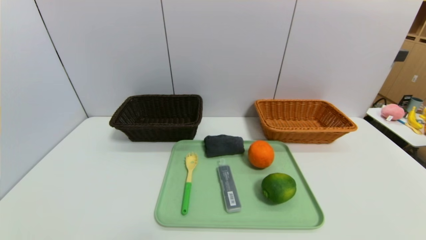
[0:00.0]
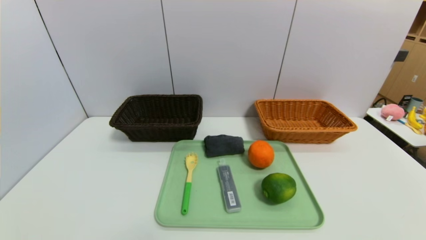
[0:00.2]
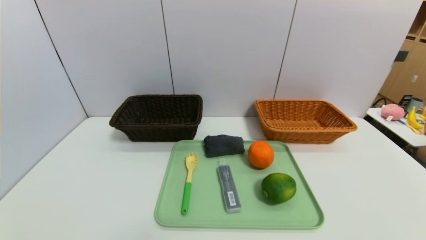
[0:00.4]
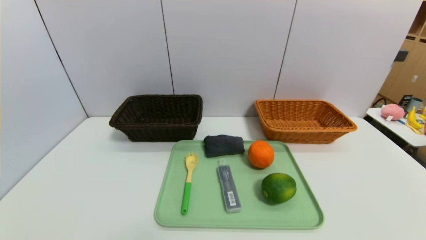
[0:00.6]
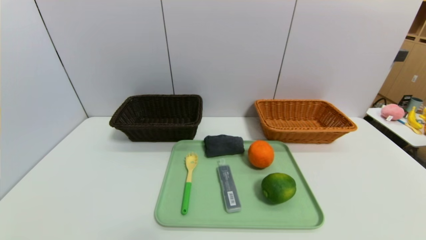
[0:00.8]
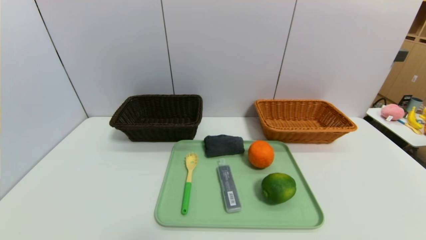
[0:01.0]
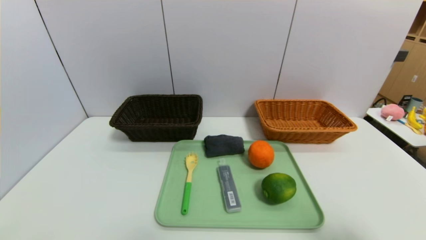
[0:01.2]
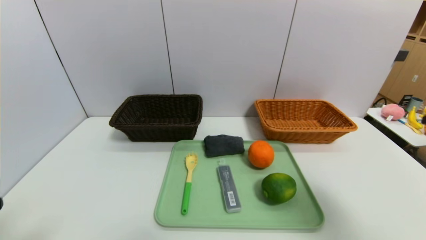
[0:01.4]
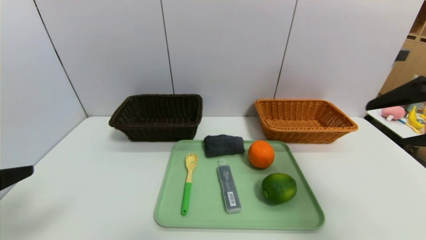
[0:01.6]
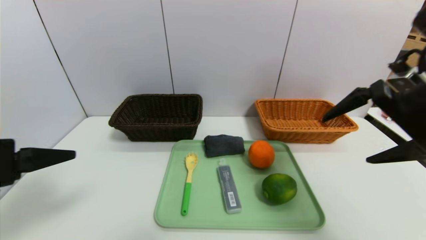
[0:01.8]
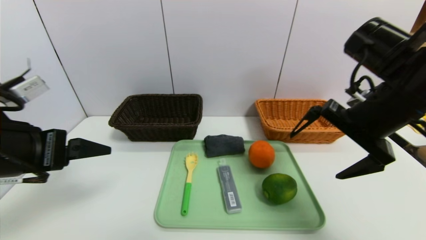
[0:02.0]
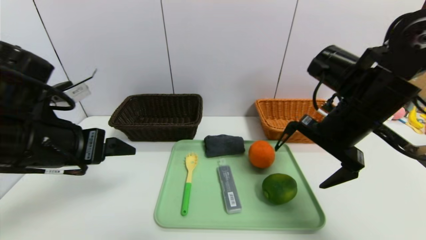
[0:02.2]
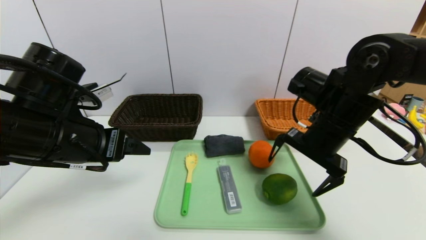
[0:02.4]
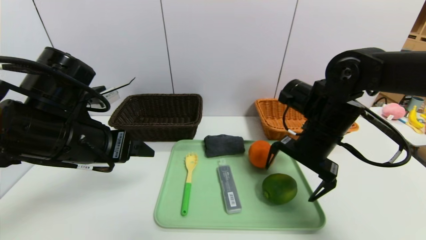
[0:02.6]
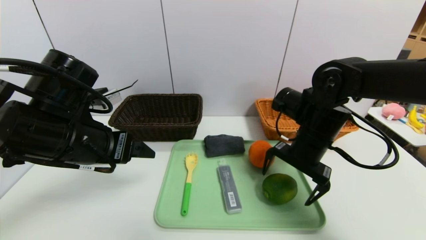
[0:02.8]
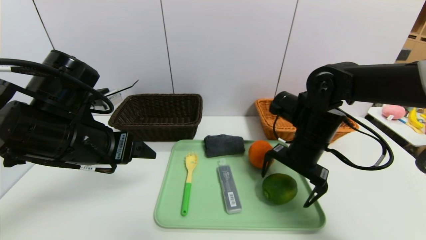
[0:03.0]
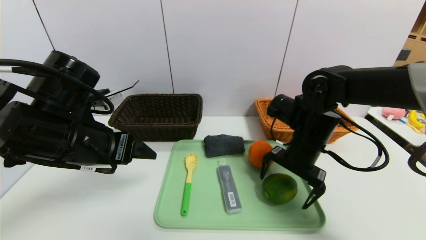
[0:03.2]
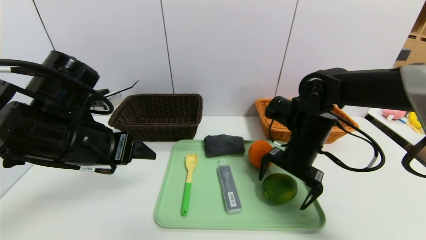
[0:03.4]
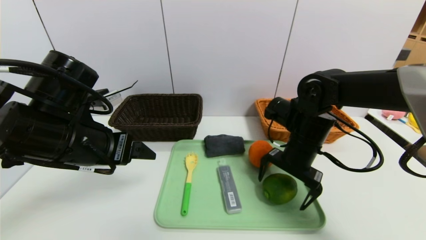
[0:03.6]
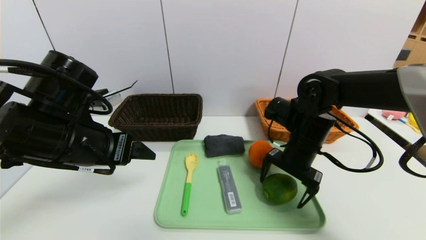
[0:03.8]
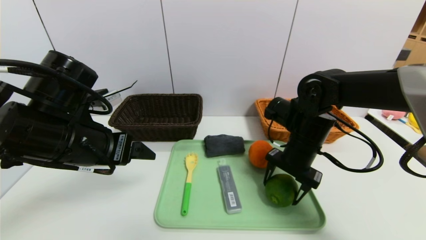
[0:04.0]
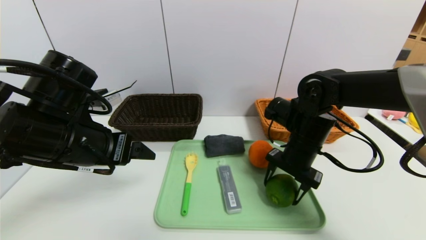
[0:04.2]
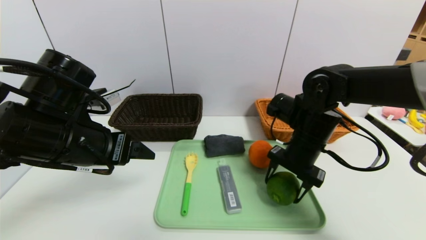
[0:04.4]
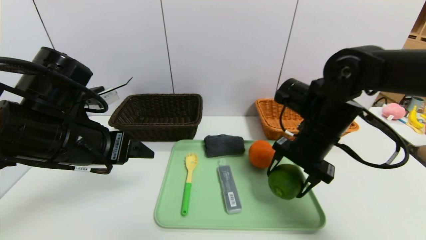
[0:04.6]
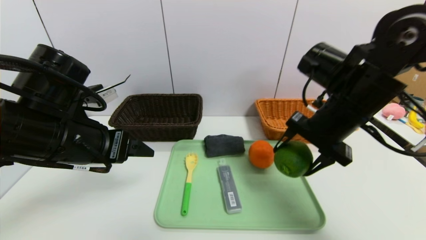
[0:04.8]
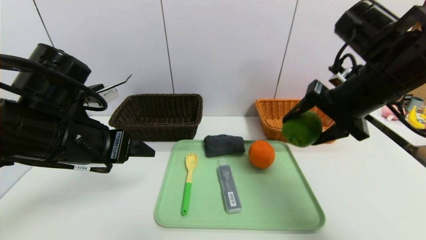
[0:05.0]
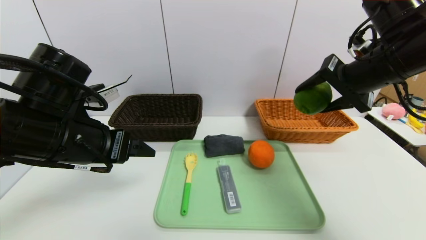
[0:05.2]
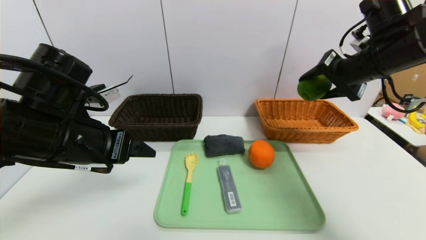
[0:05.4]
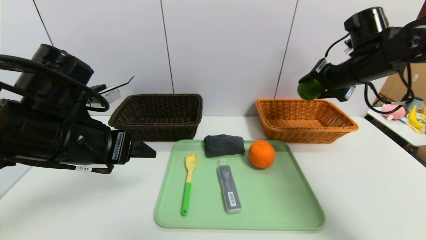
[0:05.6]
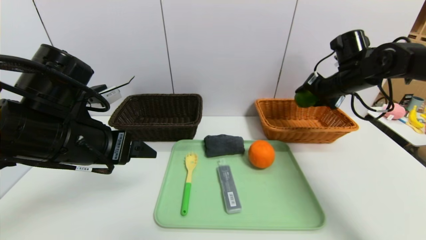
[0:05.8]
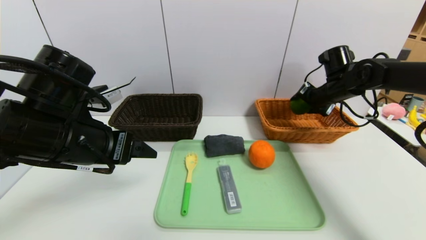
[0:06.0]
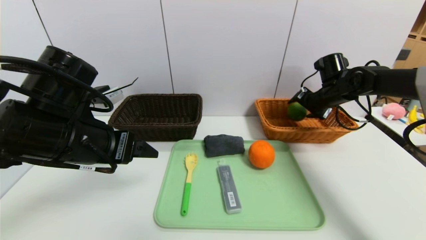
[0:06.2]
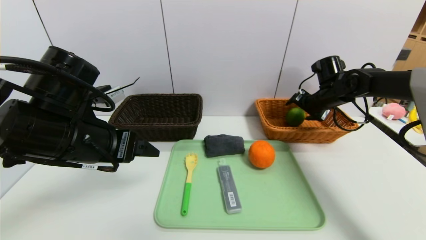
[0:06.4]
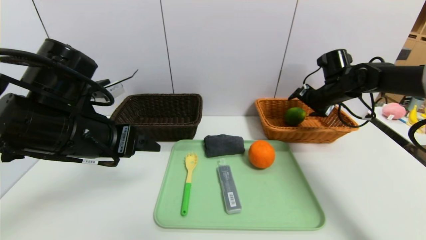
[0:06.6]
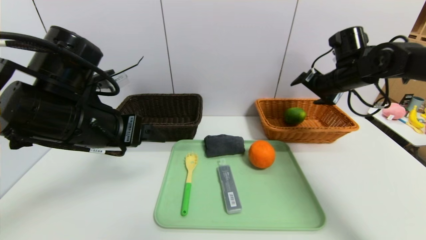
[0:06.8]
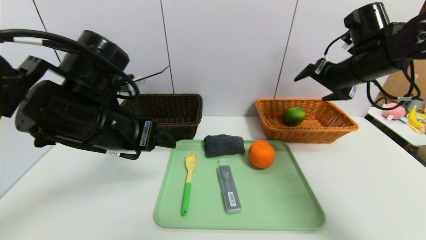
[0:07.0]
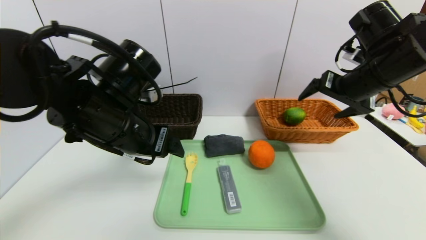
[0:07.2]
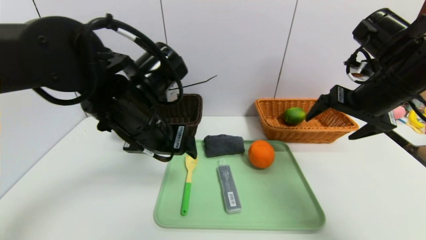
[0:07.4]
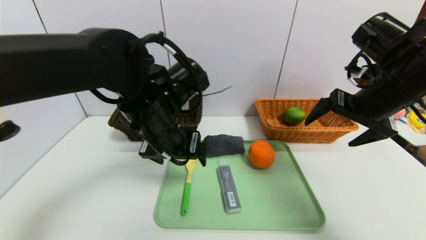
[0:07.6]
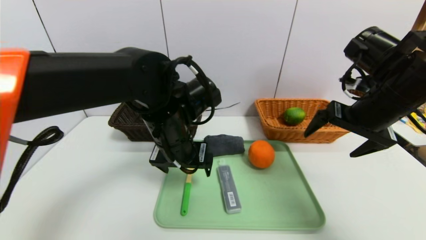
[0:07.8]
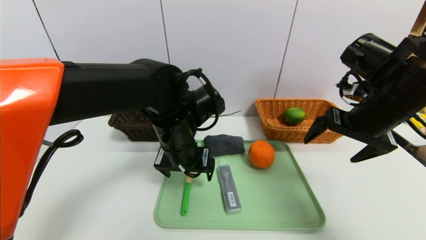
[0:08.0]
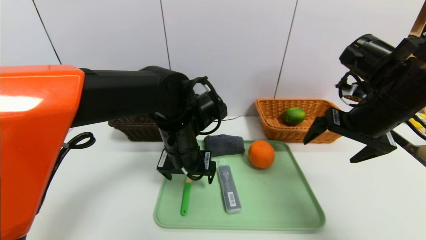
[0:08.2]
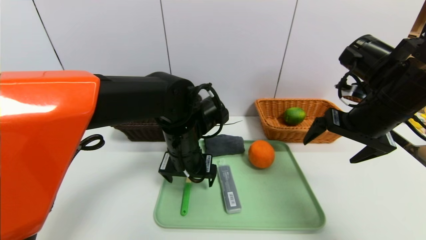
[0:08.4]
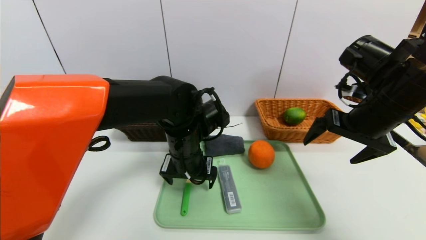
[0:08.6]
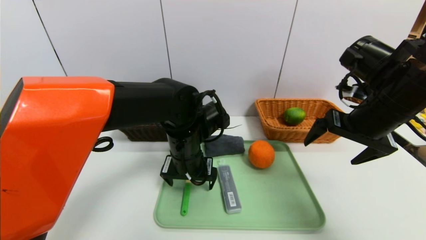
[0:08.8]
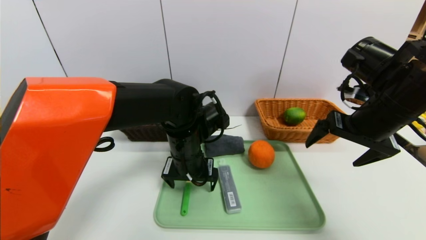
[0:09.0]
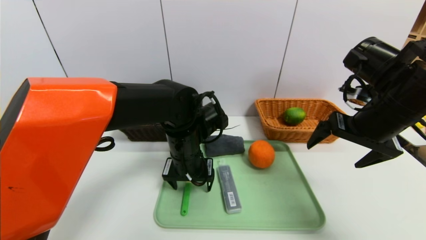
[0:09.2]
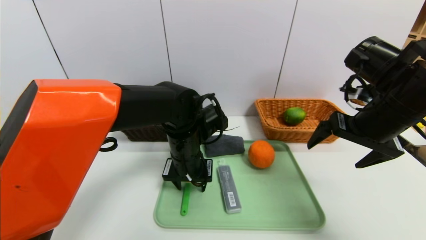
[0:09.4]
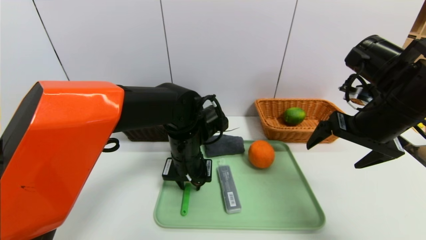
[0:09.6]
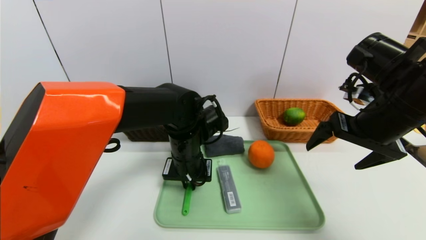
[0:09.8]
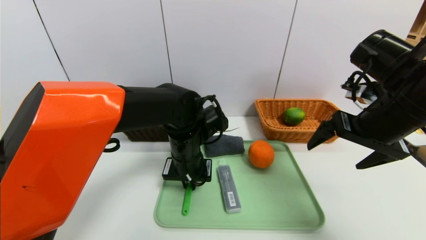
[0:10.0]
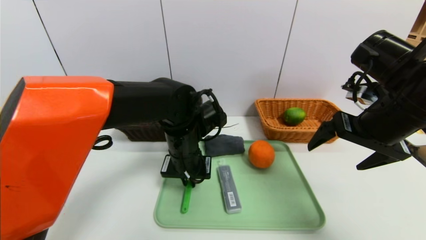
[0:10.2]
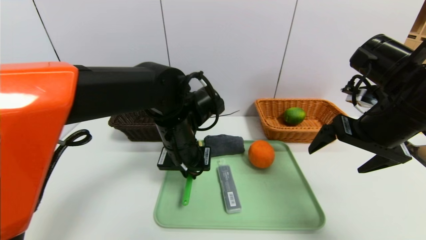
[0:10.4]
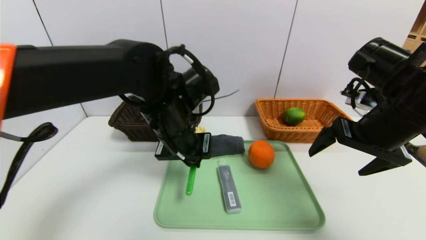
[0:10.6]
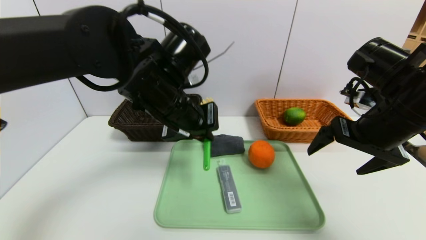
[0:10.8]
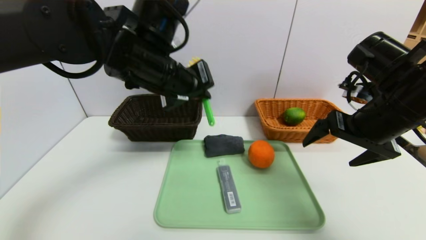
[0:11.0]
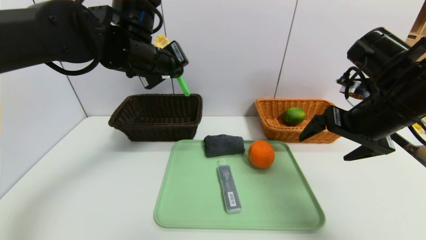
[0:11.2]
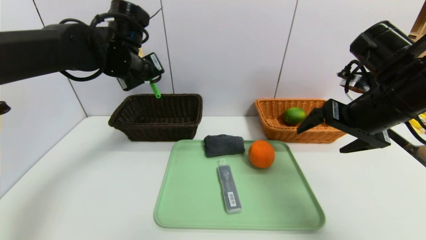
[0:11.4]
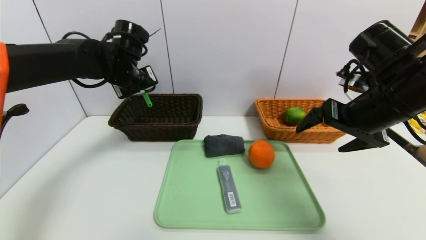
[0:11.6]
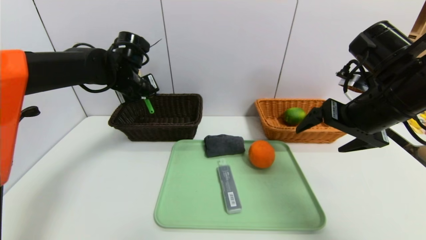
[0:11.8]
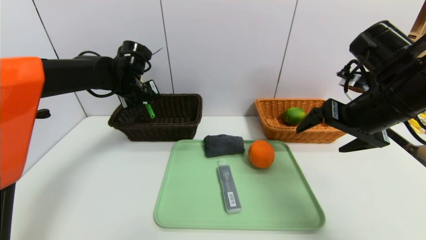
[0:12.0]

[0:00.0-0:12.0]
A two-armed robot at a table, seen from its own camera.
Task of the whole recording: place the food in the right basket with the right gripper, and place the non food items in the left basket with the left gripper.
Step, 0:00.0 to 0:06.6: Grasp the lime and put it in the right basket.
0:00.0 to 0:01.6: The grippers both shift upward and forward by roughly 30 cm.
0:01.6 to 0:03.0: The right gripper heads downward, forward and to the left, covering some 25 cm, while the left gripper heads forward and to the right, covering roughly 15 cm.
0:03.0 to 0:04.4: The right gripper closes its fingers.
0:04.4 to 0:06.0: The right gripper is displaced forward and to the right by approximately 20 cm.
0:06.0 to 0:07.6: The right gripper goes roughly 20 cm backward and upward, and opens its fingers. Meanwhile the left gripper heads to the right and forward, covering some 15 cm.
0:07.6 to 0:09.0: The left gripper moves downward, about 10 cm.
0:09.0 to 0:10.4: The left gripper closes up.
0:10.4 to 0:12.0: The left gripper heads forward and to the left, covering some 20 cm.

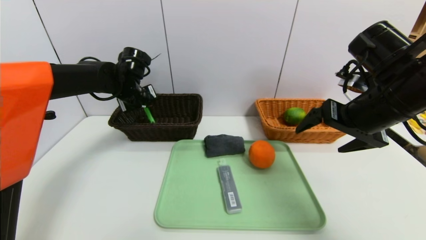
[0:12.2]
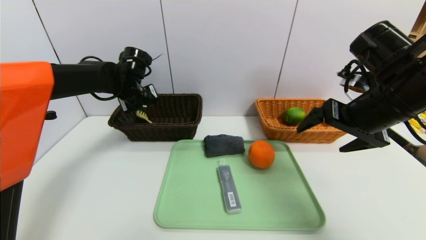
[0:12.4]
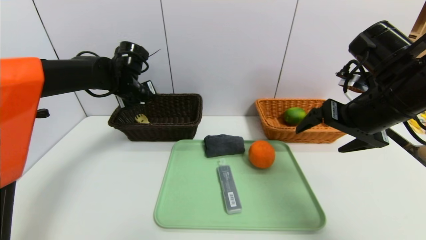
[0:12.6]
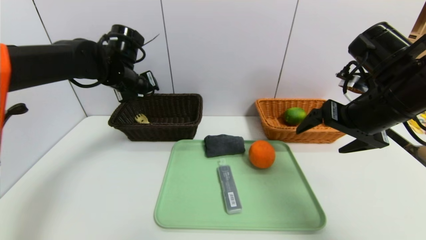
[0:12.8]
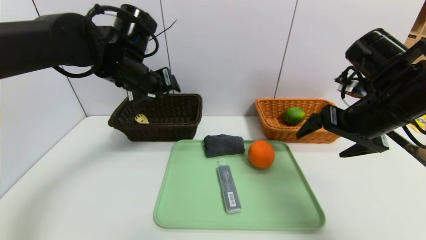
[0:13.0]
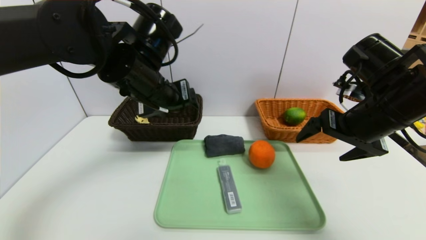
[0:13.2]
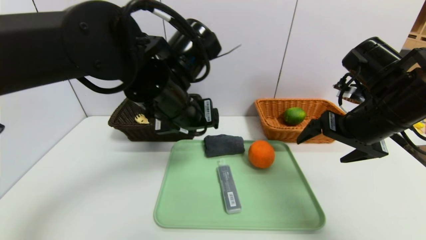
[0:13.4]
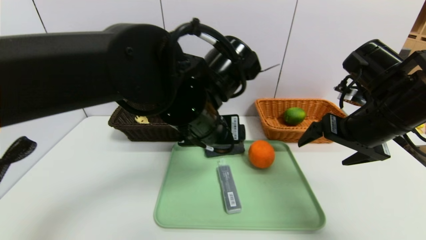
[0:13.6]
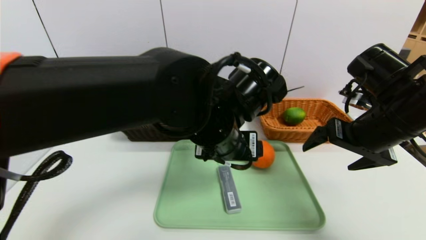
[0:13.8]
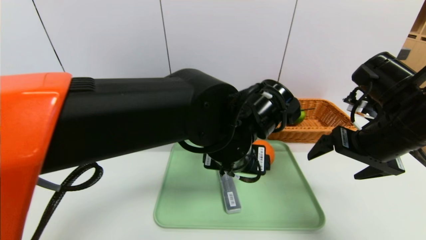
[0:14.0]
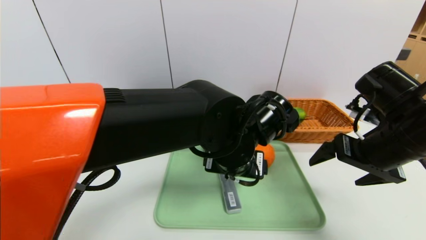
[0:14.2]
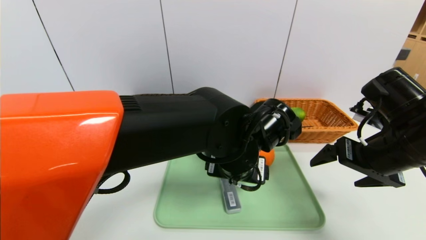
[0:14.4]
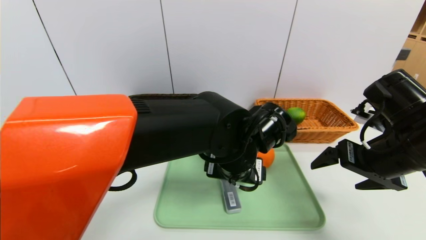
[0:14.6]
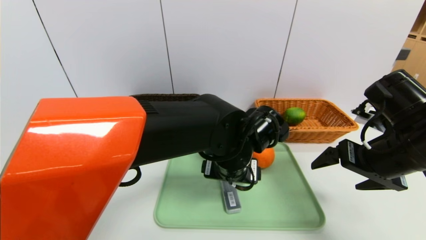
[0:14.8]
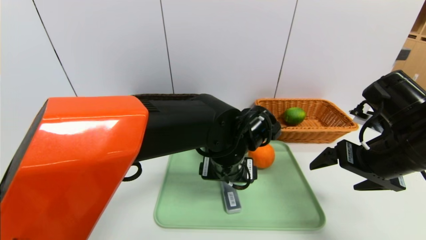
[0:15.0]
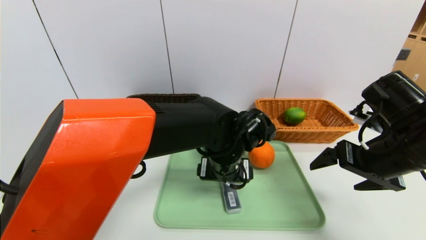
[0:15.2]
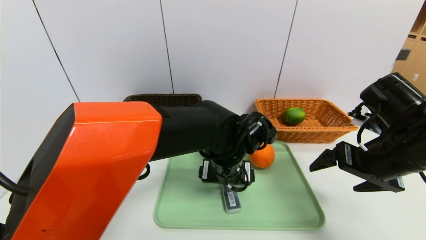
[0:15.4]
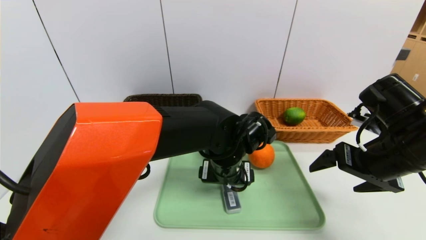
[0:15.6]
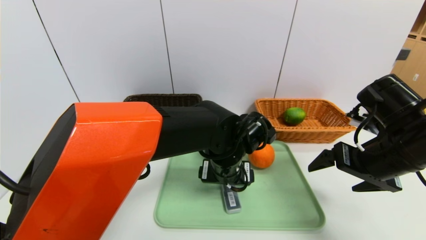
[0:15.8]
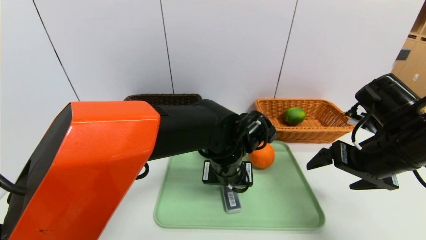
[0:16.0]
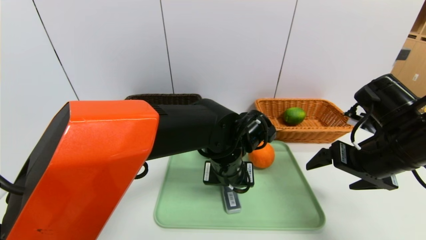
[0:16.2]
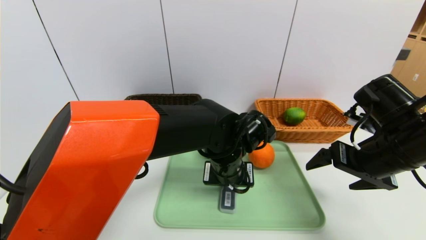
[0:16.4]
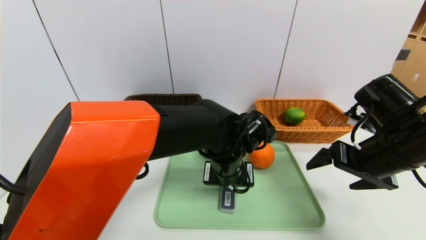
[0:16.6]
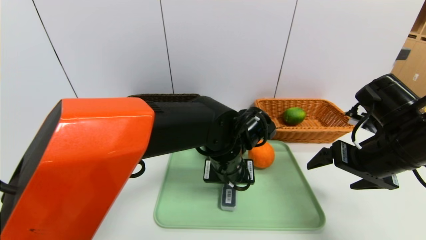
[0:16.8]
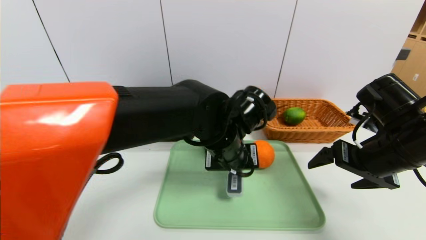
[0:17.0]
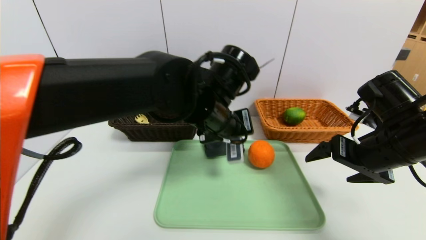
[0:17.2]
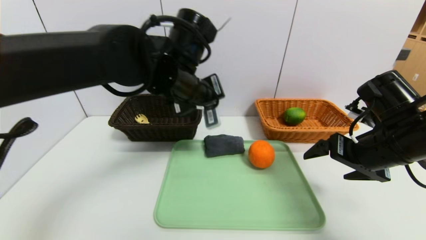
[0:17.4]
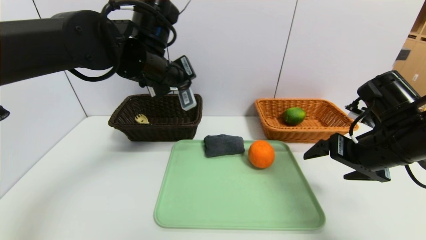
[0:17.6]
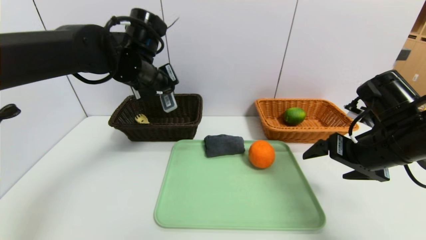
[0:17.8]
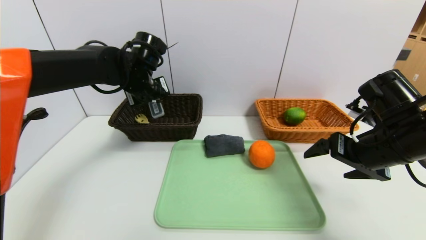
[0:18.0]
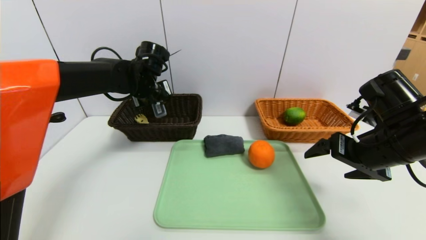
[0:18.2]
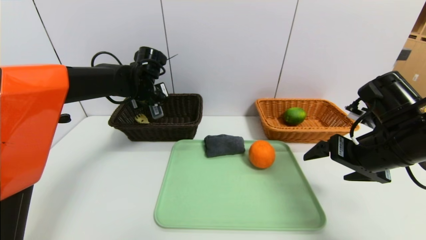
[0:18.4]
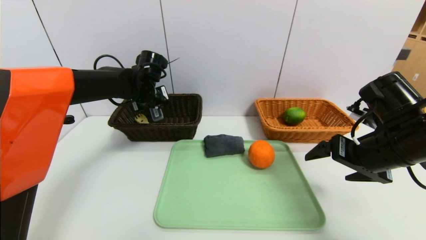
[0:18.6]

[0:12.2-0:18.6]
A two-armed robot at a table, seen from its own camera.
Task of the whole recording: place the food in the right basket with the right gripper, and place the non food items in the left basket with the left gripper.
0:12.2 to 0:13.8: The left gripper shifts some 30 cm to the right and backward, and opens its fingers.
0:13.8 to 0:15.4: The left gripper moves downward, roughly 10 cm.
0:15.4 to 0:17.0: The left gripper heads upward, covering approximately 5 cm, and closes up.
0:17.0 to 0:18.6: The left gripper travels to the left and forward by roughly 25 cm.
